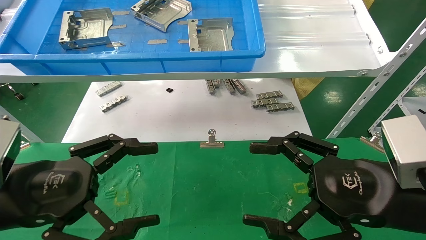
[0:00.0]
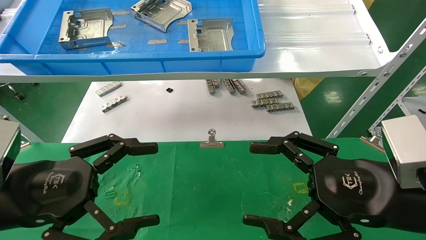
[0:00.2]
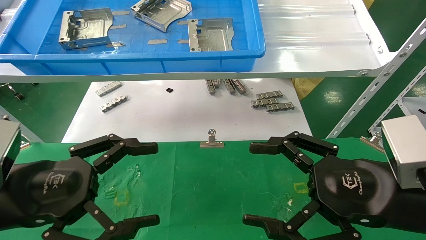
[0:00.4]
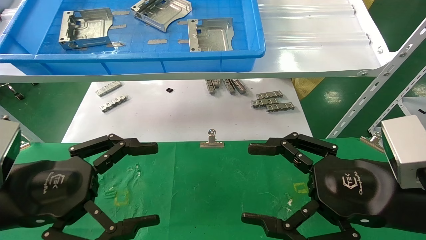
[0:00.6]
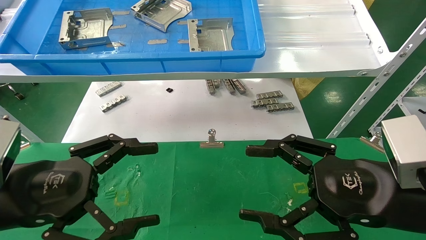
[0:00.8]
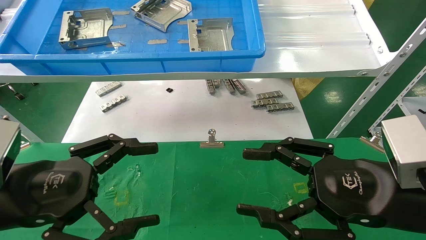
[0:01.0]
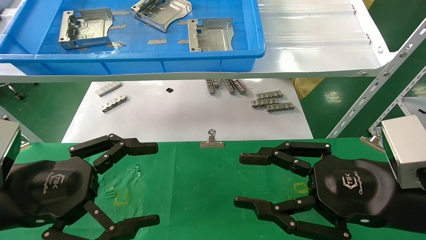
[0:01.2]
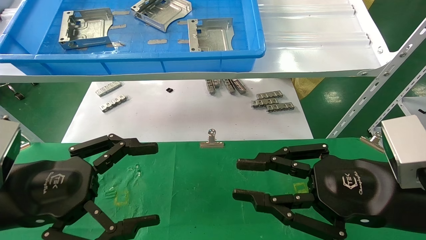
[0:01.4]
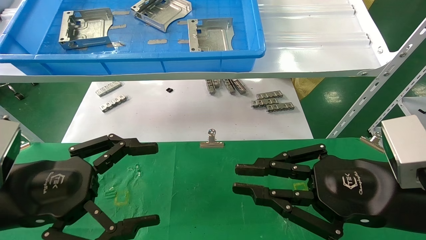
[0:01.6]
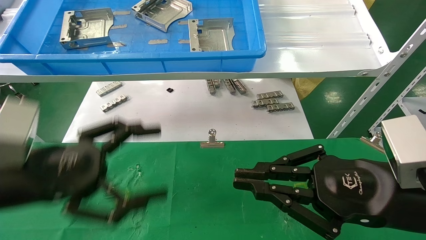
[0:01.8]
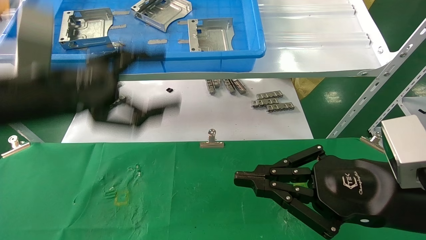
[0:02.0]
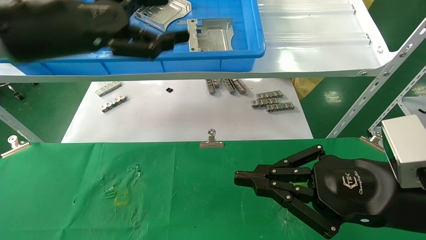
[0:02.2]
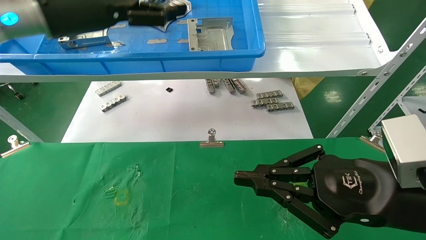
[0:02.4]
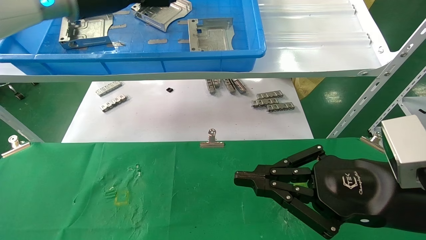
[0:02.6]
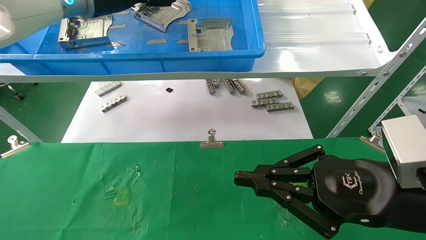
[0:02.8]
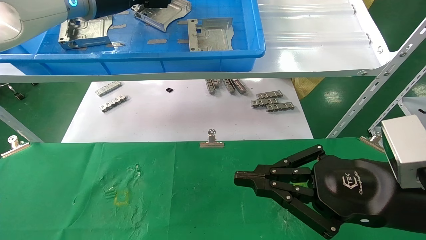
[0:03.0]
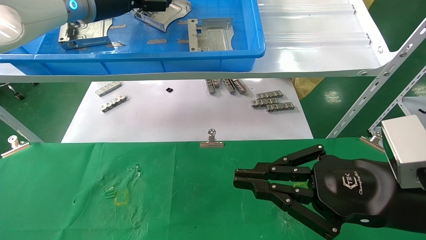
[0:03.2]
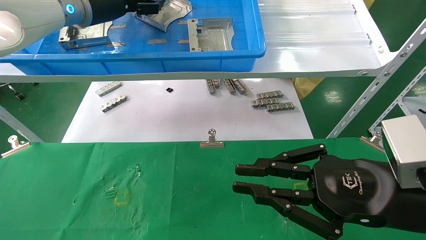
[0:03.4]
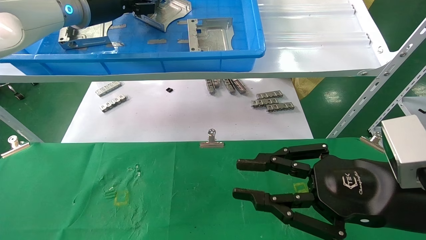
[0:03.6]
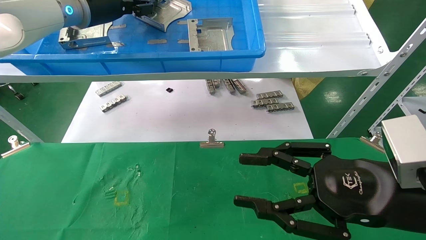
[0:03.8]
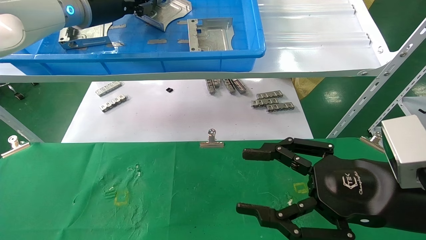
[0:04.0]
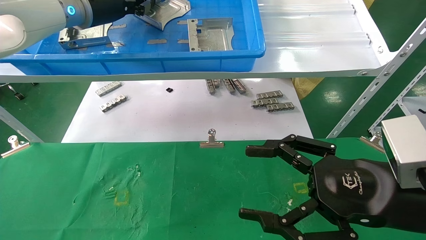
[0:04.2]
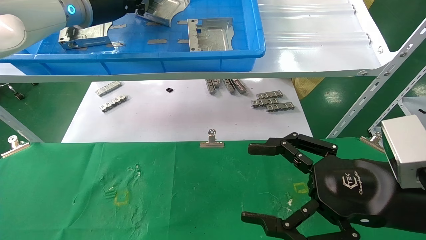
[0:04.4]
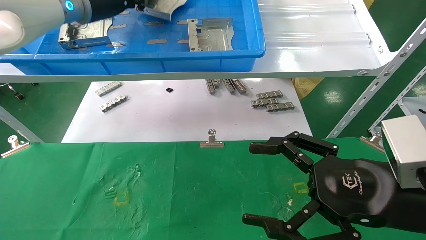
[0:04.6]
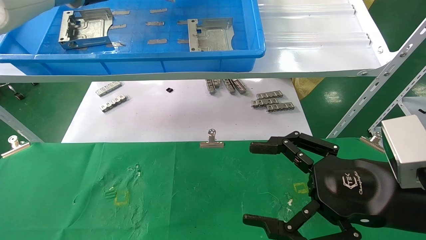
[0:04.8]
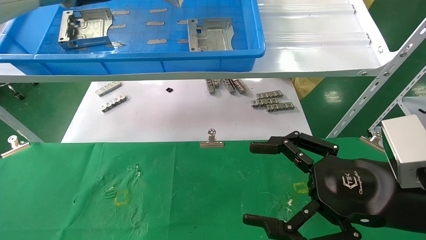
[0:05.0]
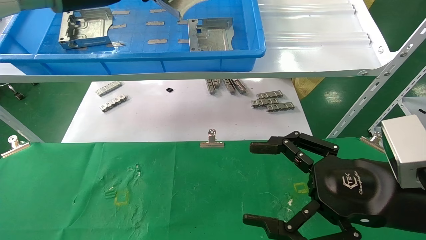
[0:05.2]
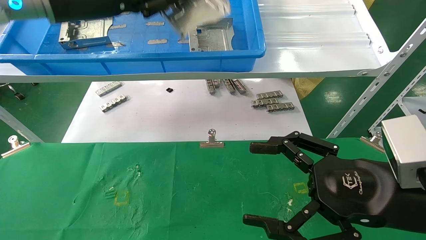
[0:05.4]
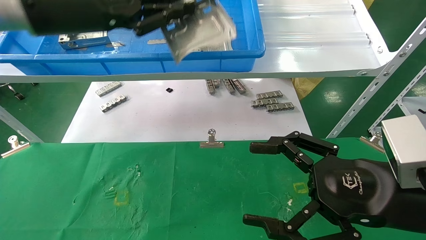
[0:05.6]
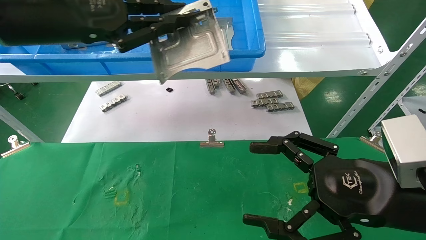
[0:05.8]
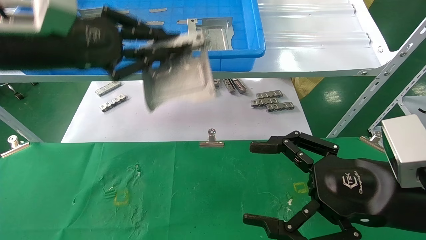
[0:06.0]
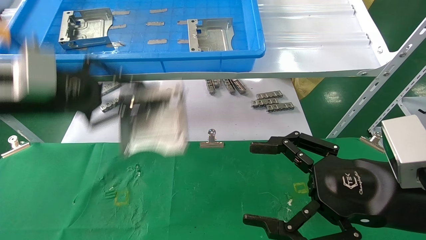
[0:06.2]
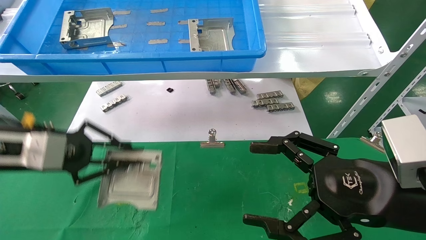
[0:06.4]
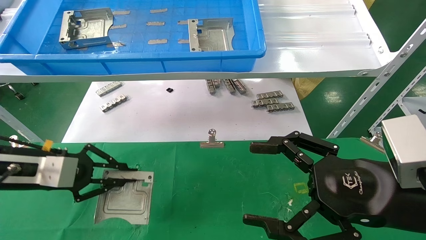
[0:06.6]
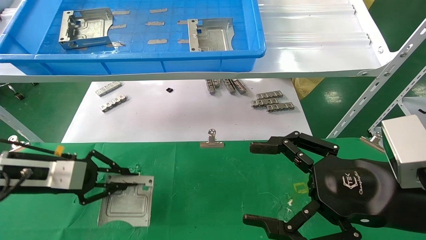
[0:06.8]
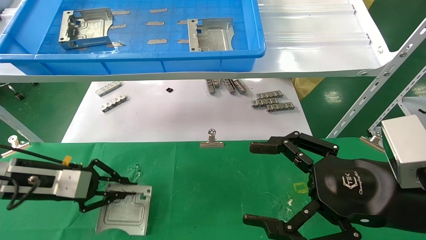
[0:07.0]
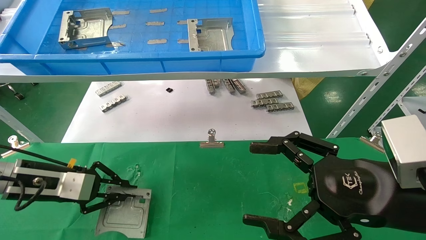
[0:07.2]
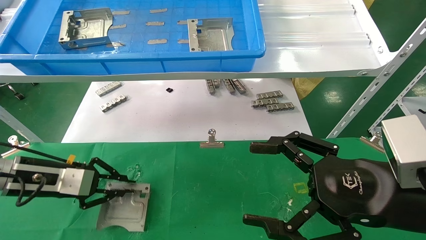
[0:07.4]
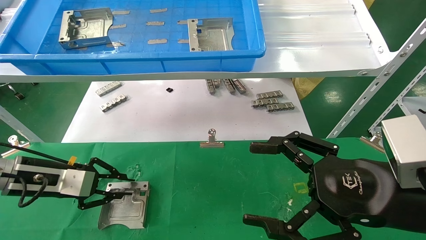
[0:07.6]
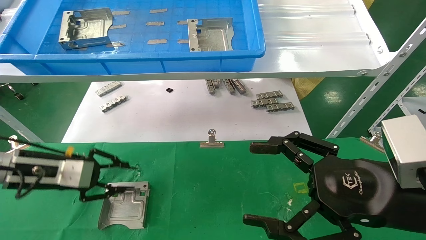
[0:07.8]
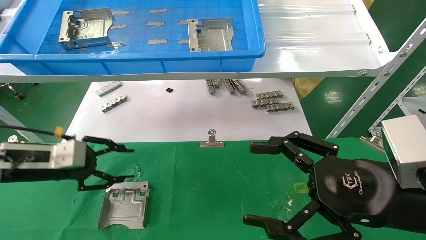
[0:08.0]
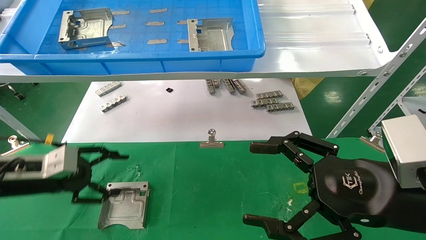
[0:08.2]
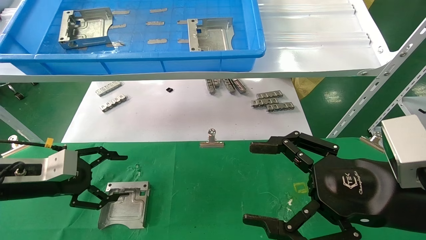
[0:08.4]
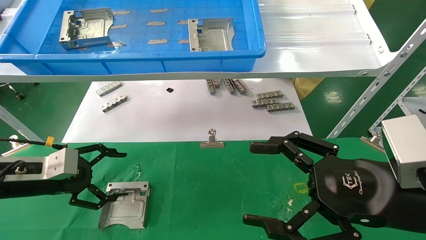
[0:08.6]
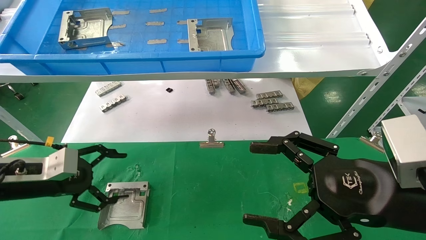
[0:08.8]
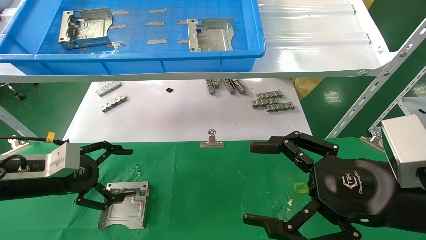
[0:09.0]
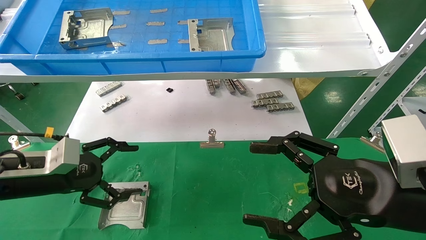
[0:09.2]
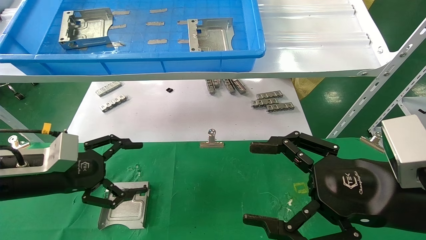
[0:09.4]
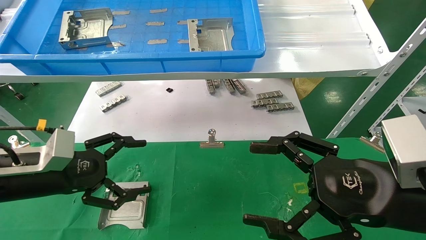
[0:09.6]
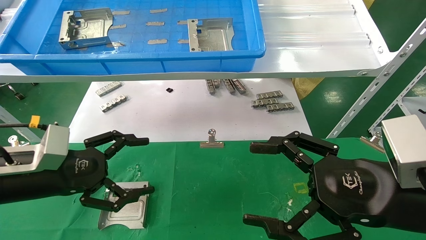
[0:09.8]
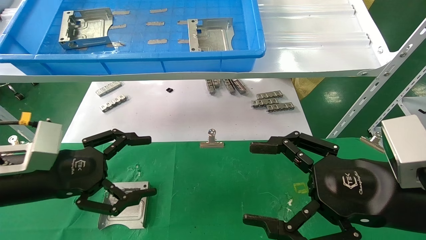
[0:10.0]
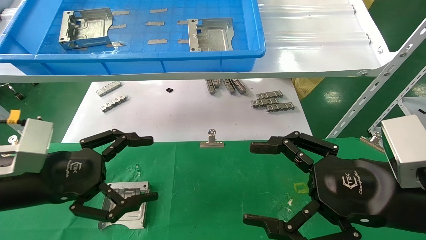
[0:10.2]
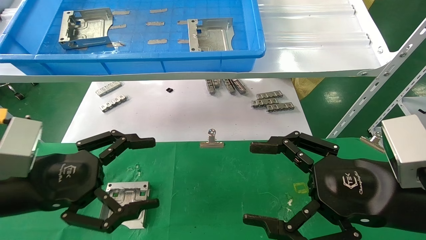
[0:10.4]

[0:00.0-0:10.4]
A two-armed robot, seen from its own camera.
Task of the whole recording: use the mechanical arm to pick up the parts and place them on the table.
Step, 0:01.8 to 0:04.6: Pick up the hard drive bracket from the feeding area.
Step, 0:04.8 to 0:08.2: Place the hard drive bracket into the box.
0:00.0 to 0:01.4: The right gripper closes up.
0:01.4 to 0:03.0: The right gripper closes up; the left gripper shifts about 35 cm forward and upward.
0:03.0 to 0:04.4: The left gripper closes its fingers; the right gripper opens up.
0:04.4 to 0:06.0: The left gripper heads backward and downward, covering about 15 cm.
0:06.0 to 0:07.4: The left gripper goes some 20 cm downward.
0:07.4 to 0:09.0: The left gripper opens.
0:09.0 to 0:10.4: The left gripper is displaced backward and to the right by roughly 10 cm.

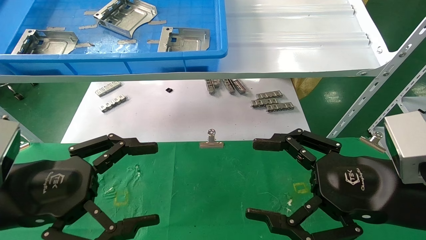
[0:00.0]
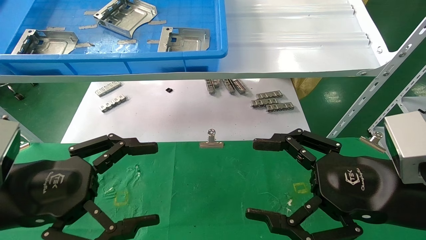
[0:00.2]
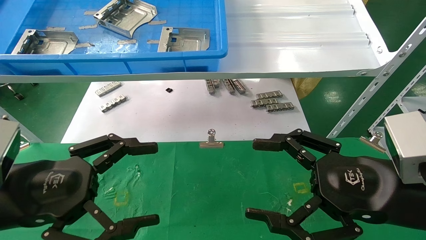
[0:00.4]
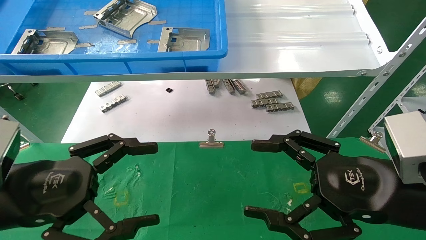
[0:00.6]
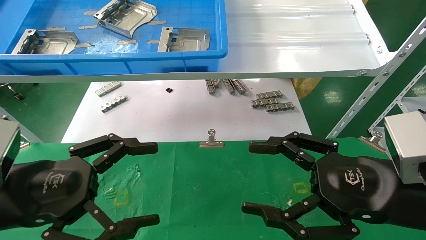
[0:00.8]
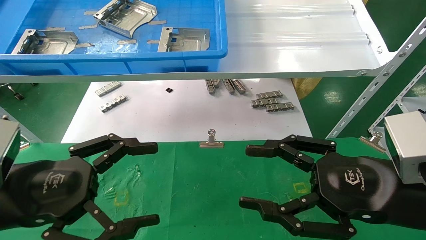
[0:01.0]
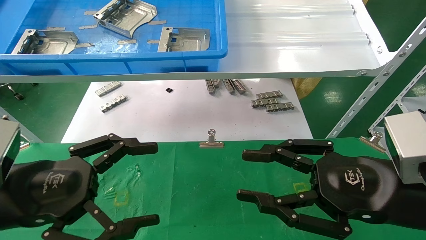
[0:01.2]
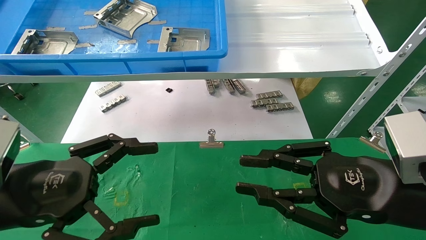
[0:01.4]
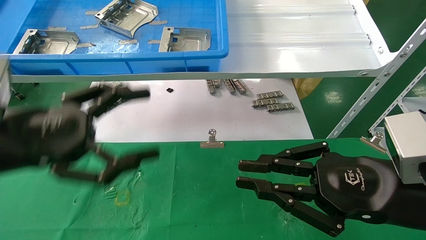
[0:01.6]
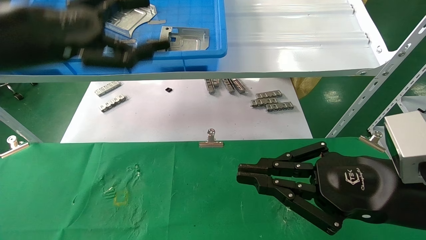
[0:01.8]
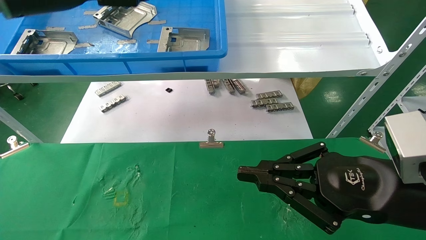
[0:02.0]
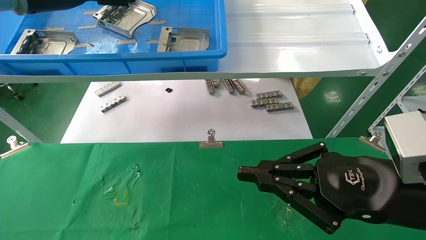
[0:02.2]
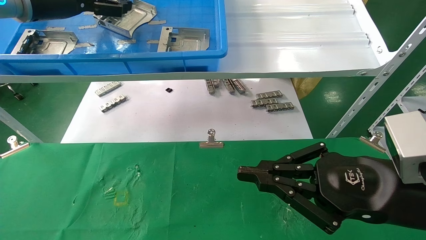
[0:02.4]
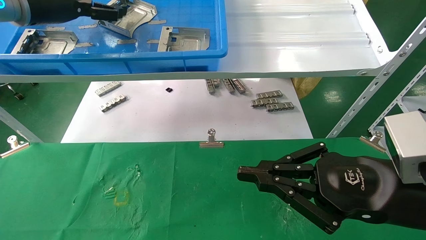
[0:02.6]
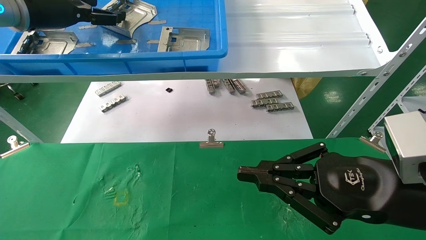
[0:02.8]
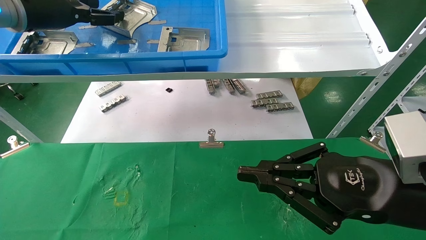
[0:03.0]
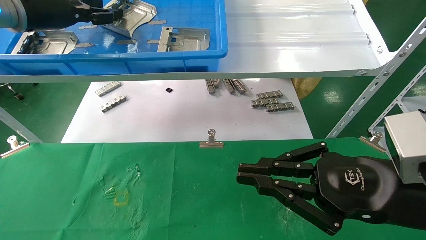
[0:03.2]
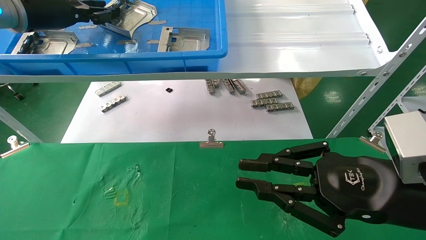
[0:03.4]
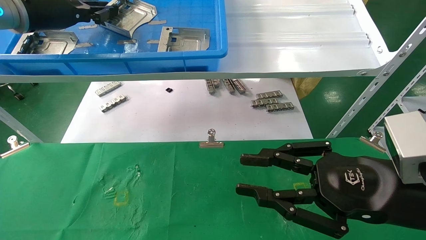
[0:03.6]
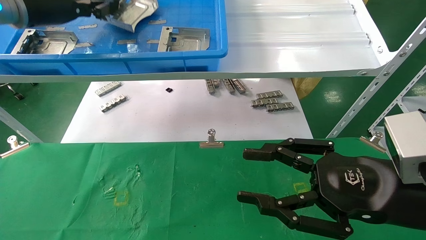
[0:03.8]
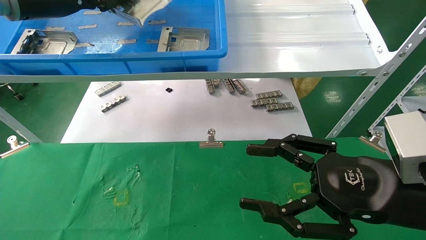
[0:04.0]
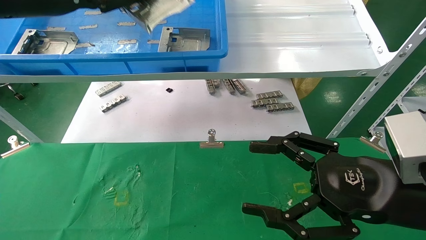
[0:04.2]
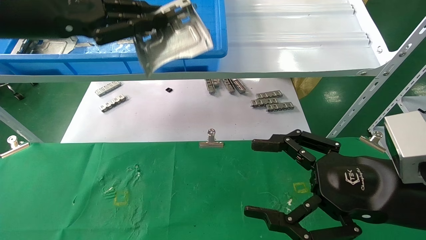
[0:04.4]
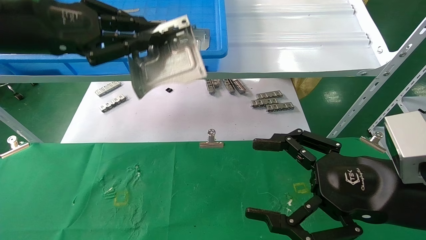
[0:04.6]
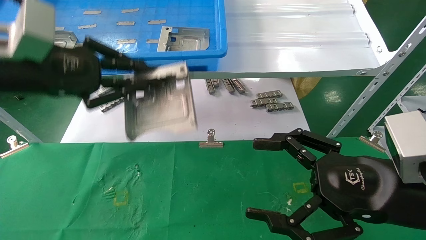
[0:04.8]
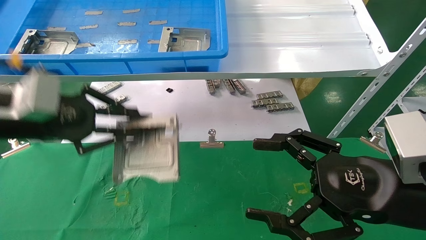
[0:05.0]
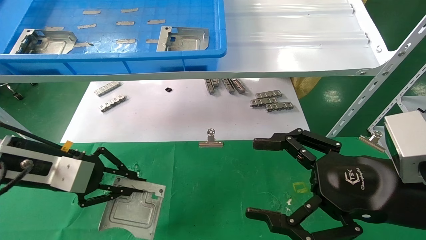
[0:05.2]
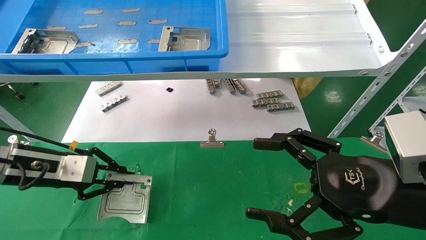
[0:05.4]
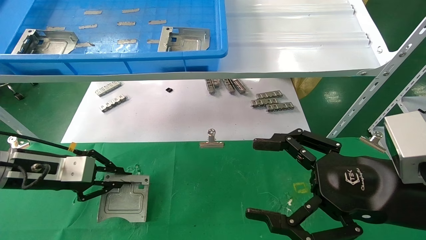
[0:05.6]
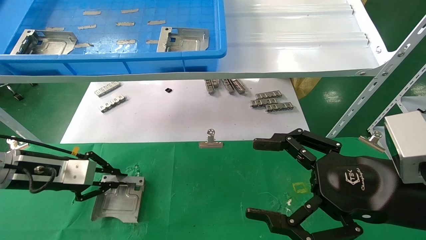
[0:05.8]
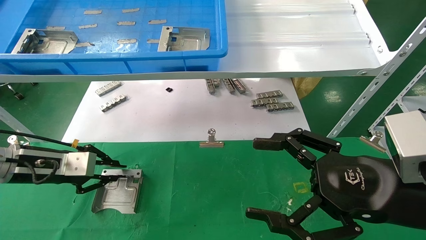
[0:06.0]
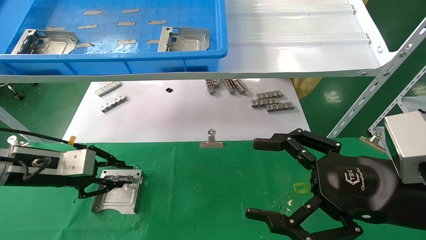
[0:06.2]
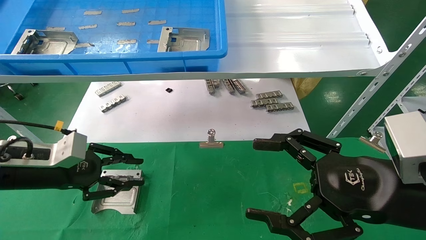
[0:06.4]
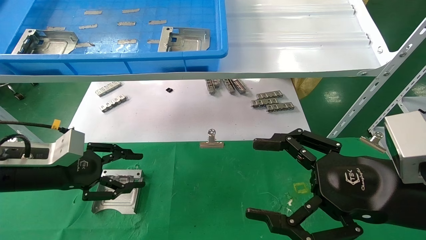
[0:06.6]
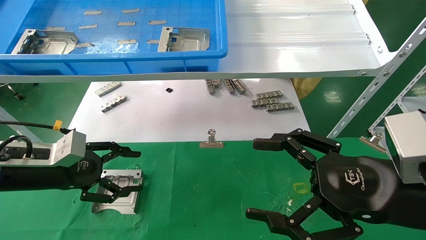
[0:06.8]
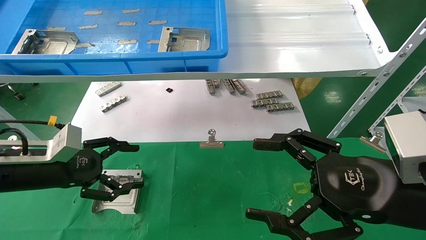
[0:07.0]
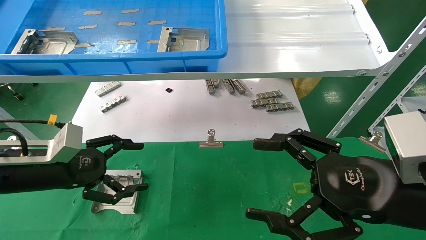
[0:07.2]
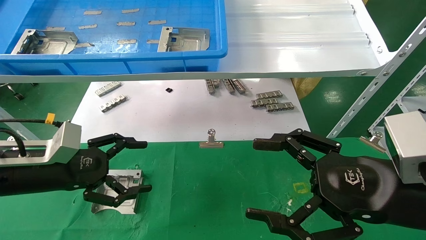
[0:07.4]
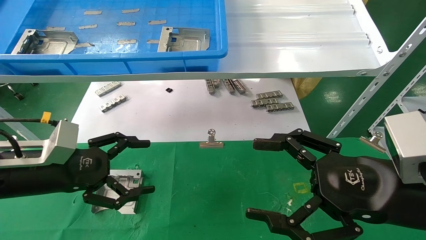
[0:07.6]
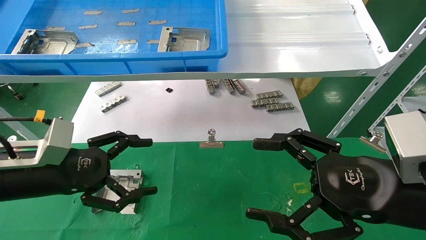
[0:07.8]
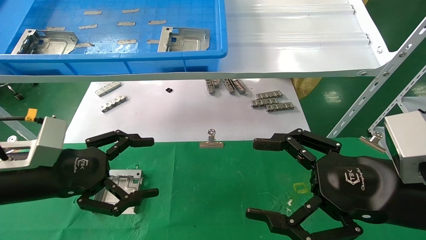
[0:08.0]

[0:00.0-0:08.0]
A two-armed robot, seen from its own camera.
Task of the whole recording: use the mechanical arm to pick up the parts and place them on the table.
Step, 0:01.8 to 0:03.6: Pick up the hard drive bracket from the feeding area.
Step, 0:03.8 to 0:06.0: Place the hard drive bracket into the box.
0:00.0 to 0:01.6: The left gripper shifts approximately 10 cm upward. Meanwhile the right gripper closes up.
0:01.6 to 0:03.2: The left gripper is displaced forward and upward by some 20 cm, and closes up.
0:03.2 to 0:04.8: The right gripper opens. Meanwhile the left gripper travels backward and downward by some 15 cm, and closes up.
0:04.8 to 0:06.4: The left gripper is displaced downward by roughly 15 cm.
0:06.4 to 0:08.0: The left gripper shifts approximately 5 cm backward, and opens.
